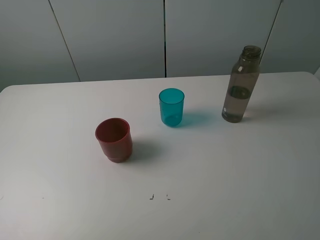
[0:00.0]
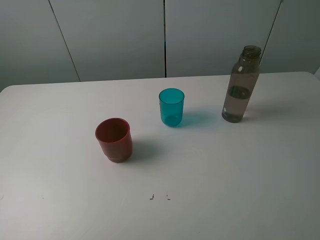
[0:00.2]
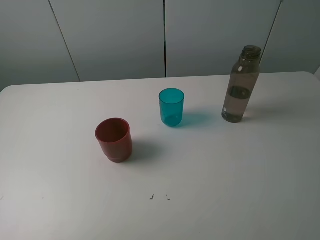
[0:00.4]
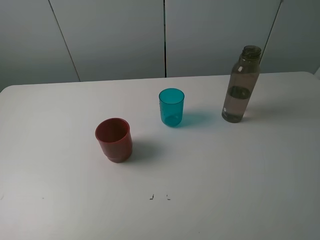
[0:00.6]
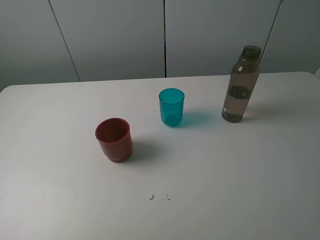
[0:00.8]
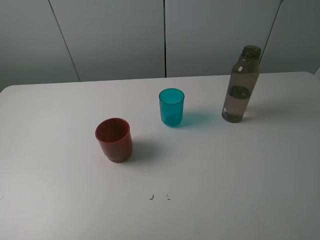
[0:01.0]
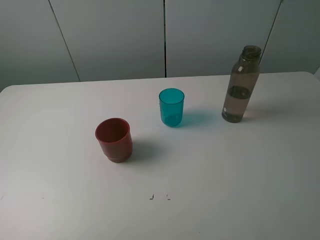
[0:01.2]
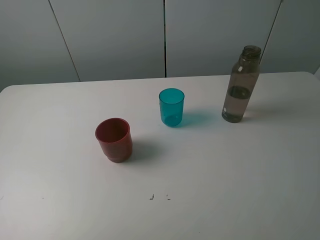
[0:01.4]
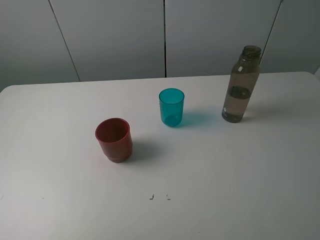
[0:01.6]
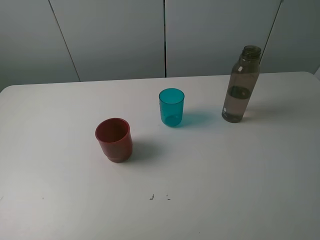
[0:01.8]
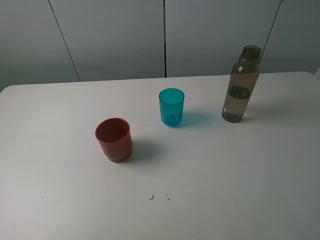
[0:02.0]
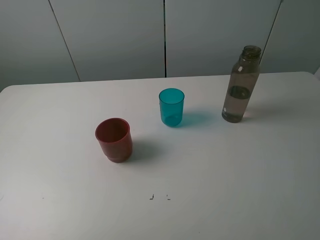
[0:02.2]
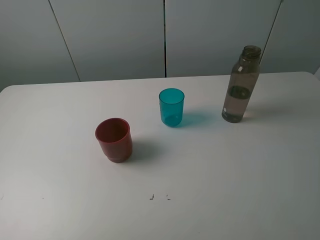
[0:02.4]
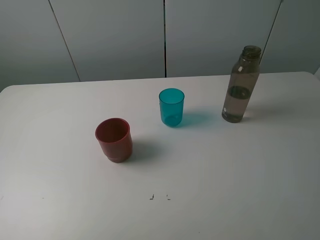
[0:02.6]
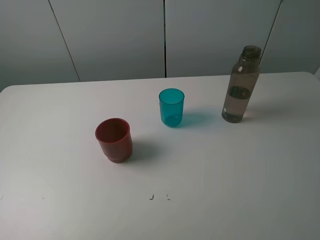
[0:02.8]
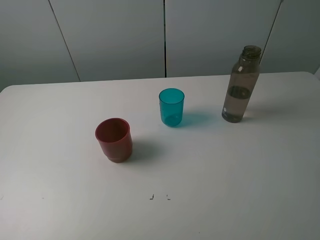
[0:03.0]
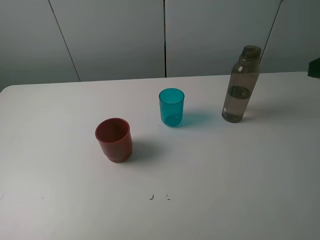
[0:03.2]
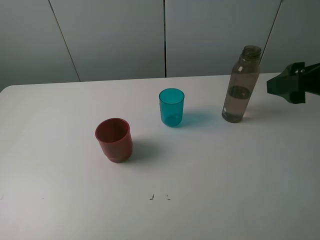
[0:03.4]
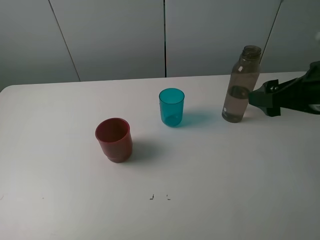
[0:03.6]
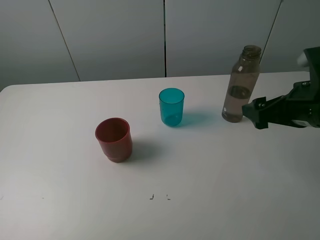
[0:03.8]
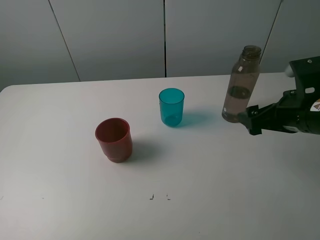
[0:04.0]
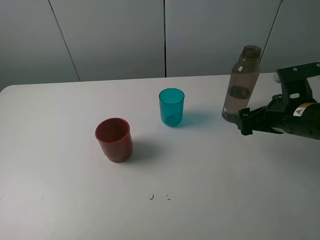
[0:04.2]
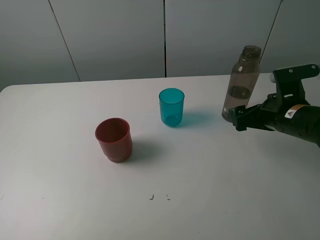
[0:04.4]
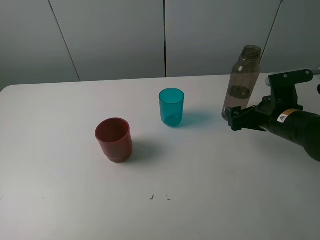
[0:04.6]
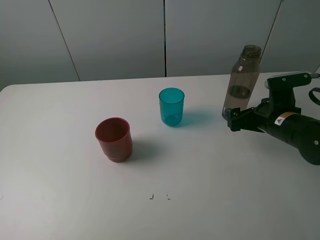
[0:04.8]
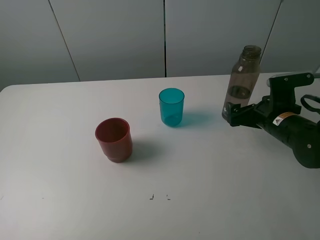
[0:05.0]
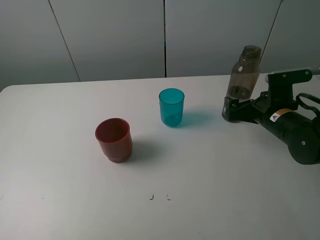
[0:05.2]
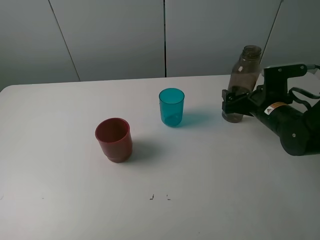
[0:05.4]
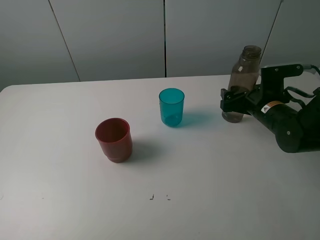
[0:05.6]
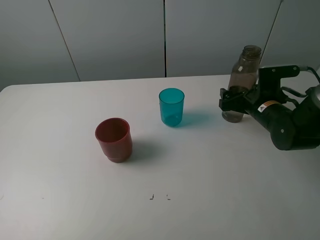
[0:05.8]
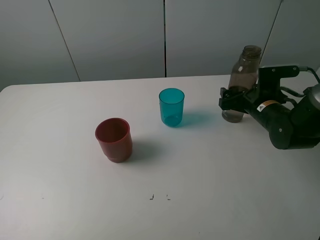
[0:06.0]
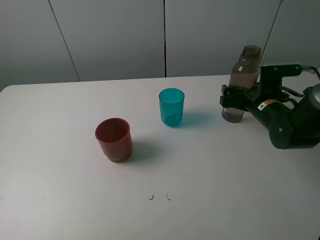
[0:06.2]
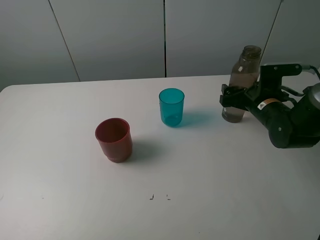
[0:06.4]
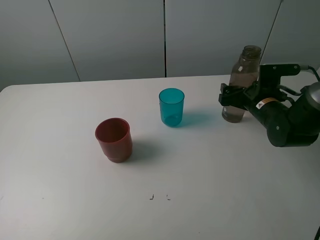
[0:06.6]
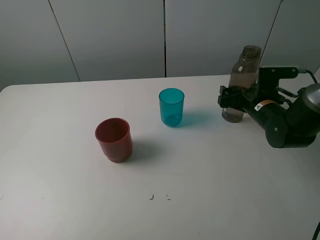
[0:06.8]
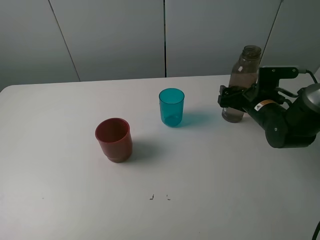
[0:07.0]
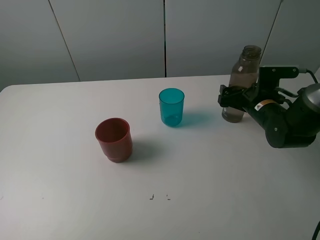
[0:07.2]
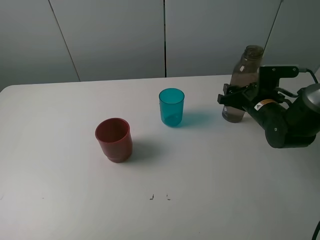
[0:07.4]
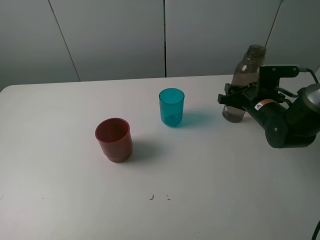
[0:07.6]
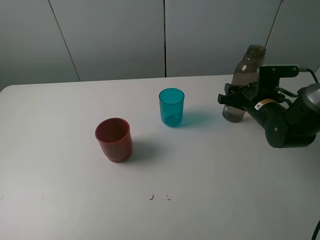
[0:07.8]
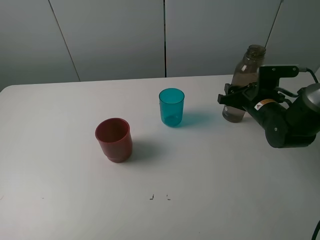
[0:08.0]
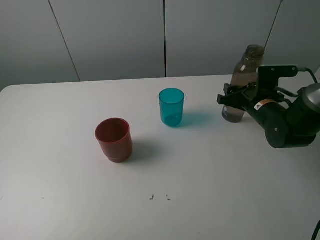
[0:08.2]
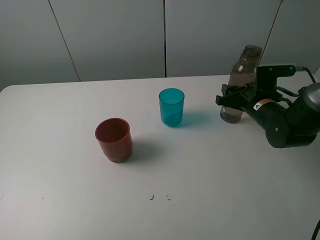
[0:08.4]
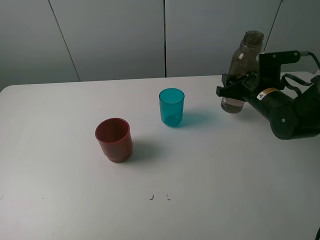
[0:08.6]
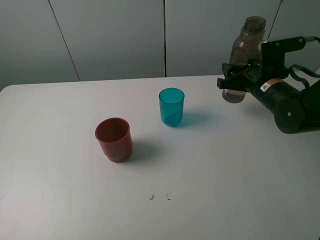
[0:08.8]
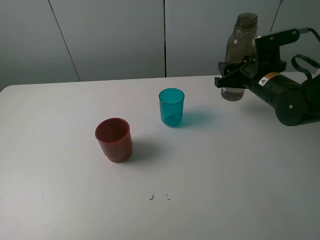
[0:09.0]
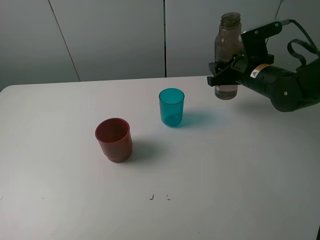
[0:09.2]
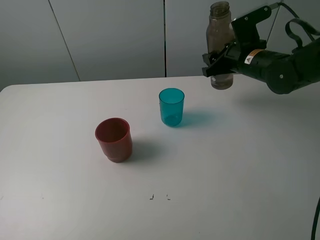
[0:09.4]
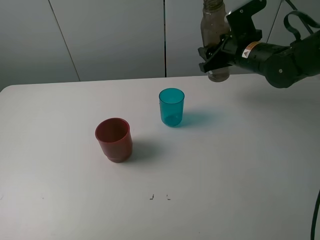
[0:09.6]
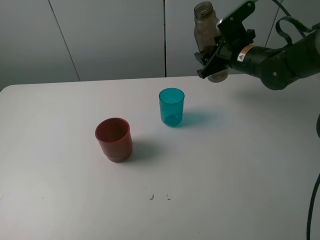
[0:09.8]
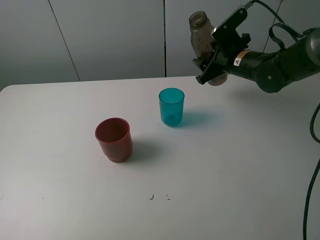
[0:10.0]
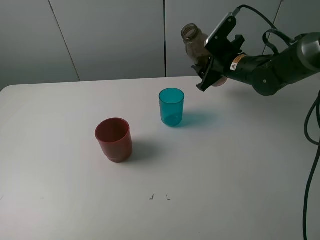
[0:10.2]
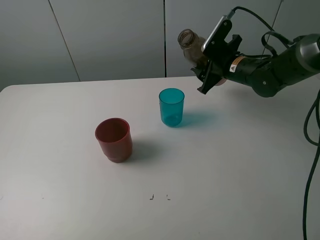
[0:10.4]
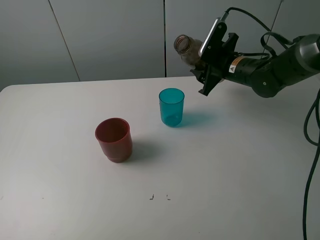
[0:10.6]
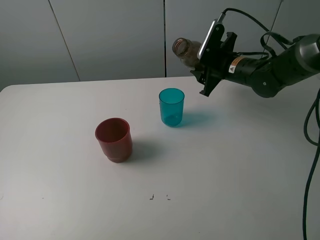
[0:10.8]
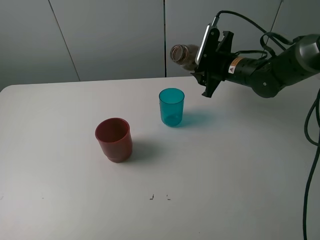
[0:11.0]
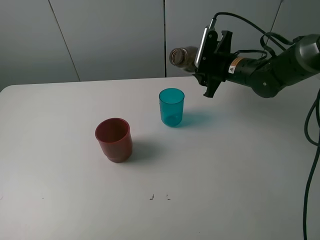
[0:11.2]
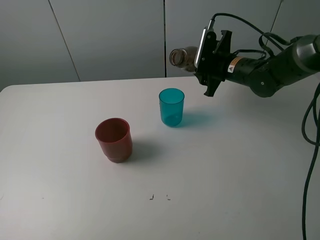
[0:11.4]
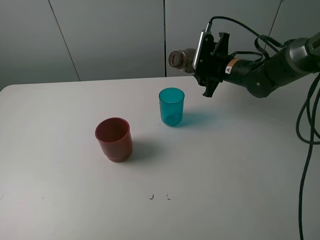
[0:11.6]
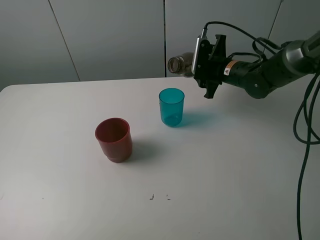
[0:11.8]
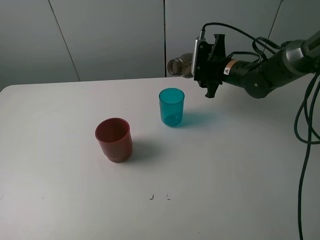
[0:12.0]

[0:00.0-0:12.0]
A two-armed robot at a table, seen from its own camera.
Task of the whole recording: pick up the bottle and pour water into the cup, then pick up the cup containing water and pour it into another cup.
Step, 0:00.0 to 0:07.6: Grasp the brown bottle with the right gripper.
0:00.0 to 0:01.6: Both grippers stay about where they are.
0:03.0 to 0:04.4: The right gripper travels downward and forward by some 25 cm.
0:04.4 to 0:06.0: The right gripper is displaced forward by roughly 5 cm.
0:06.0 to 0:07.6: The right gripper closes up.
0:07.6 to 0:09.0: The right gripper goes roughly 5 cm upward.
0:09.0 to 0:10.4: The right gripper moves forward, some 5 cm.

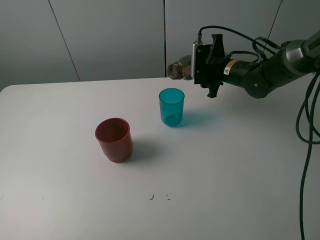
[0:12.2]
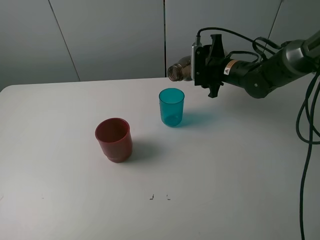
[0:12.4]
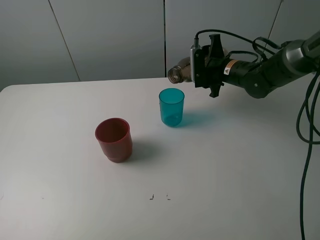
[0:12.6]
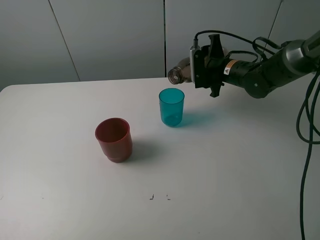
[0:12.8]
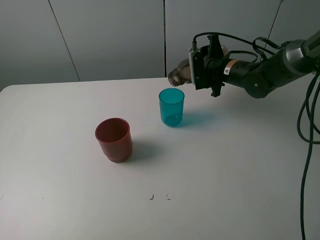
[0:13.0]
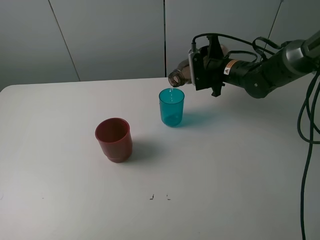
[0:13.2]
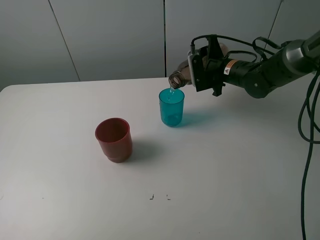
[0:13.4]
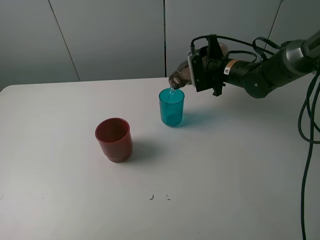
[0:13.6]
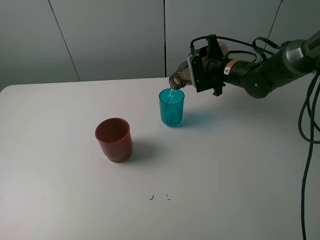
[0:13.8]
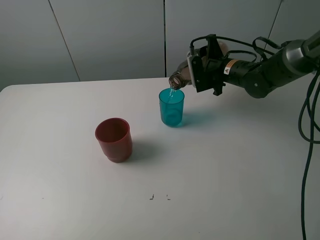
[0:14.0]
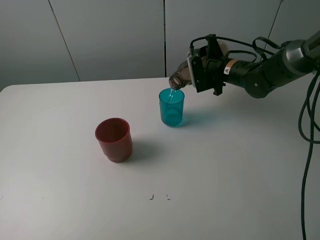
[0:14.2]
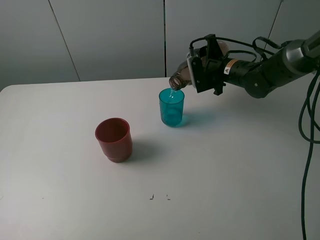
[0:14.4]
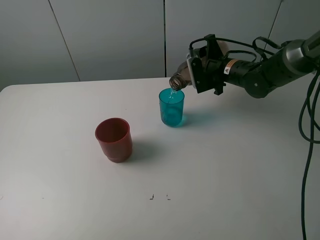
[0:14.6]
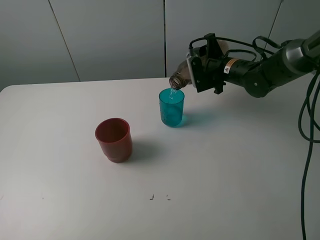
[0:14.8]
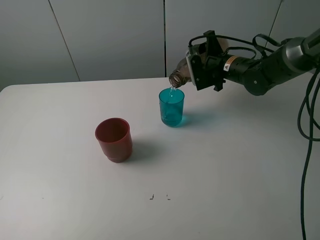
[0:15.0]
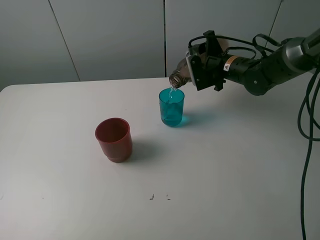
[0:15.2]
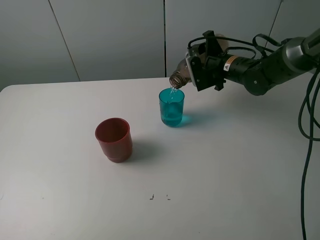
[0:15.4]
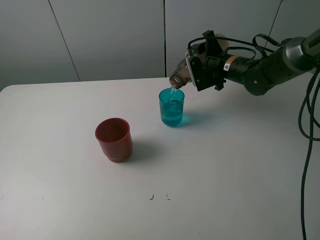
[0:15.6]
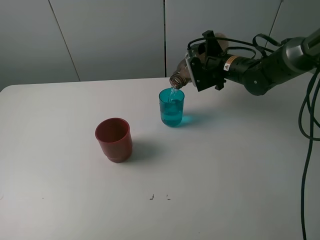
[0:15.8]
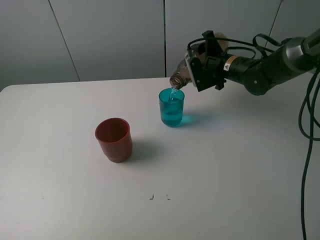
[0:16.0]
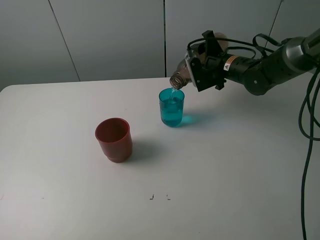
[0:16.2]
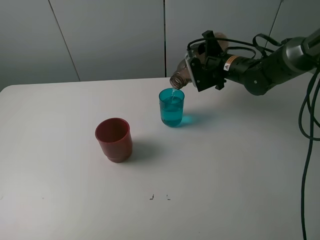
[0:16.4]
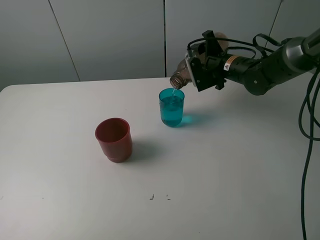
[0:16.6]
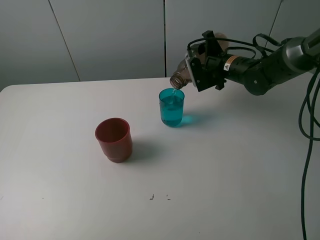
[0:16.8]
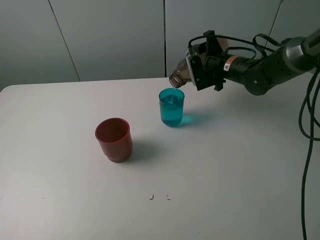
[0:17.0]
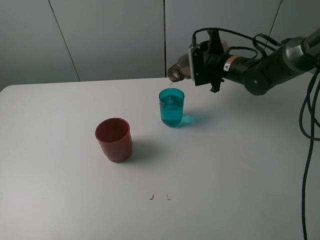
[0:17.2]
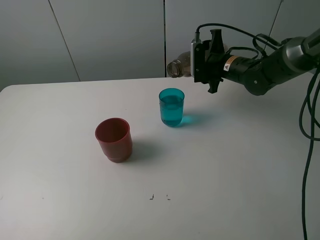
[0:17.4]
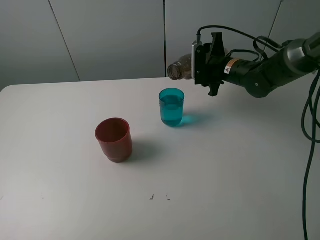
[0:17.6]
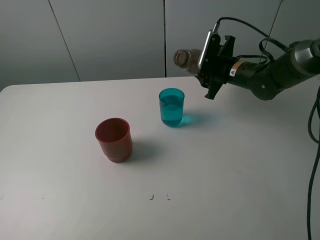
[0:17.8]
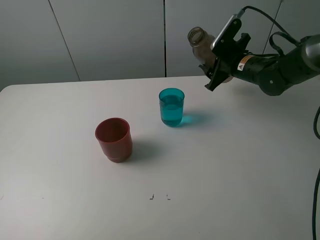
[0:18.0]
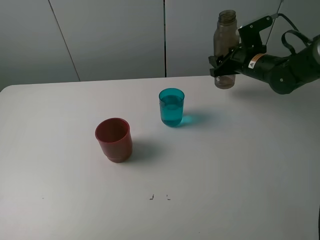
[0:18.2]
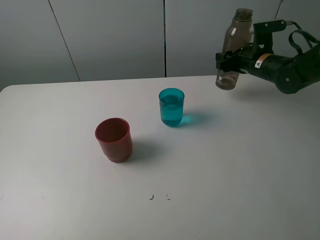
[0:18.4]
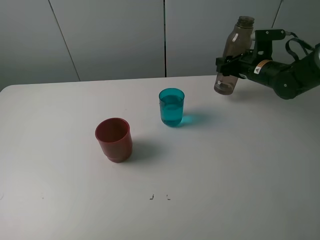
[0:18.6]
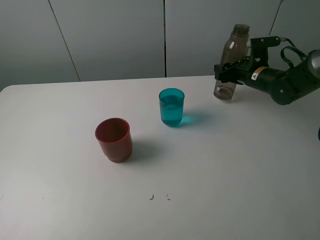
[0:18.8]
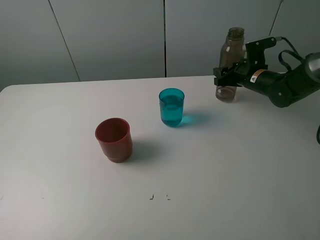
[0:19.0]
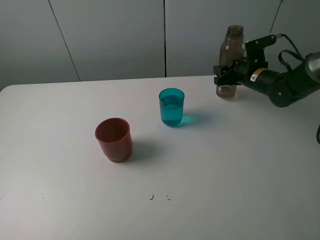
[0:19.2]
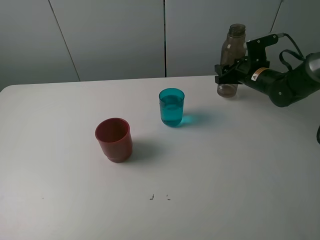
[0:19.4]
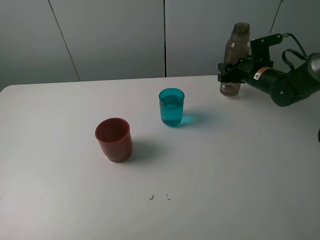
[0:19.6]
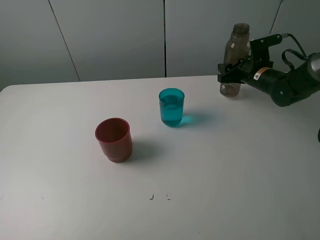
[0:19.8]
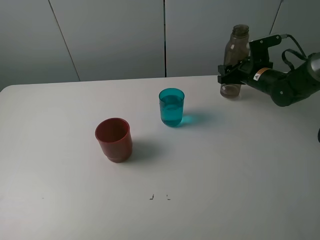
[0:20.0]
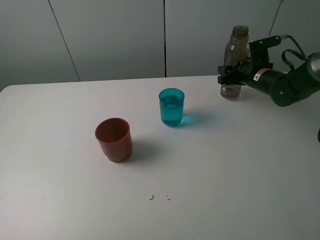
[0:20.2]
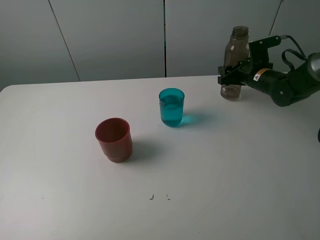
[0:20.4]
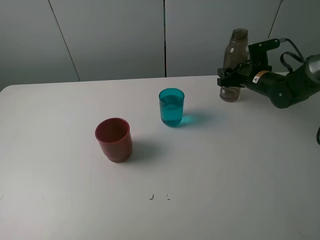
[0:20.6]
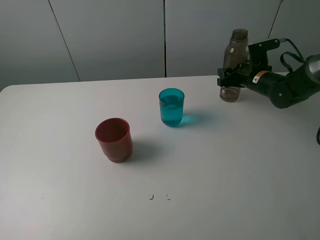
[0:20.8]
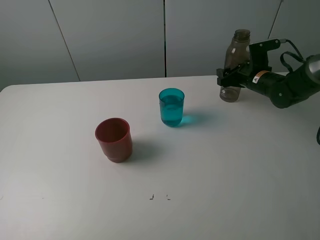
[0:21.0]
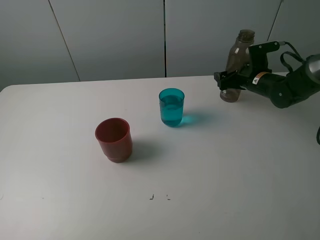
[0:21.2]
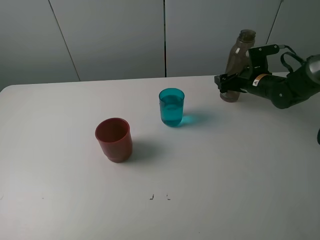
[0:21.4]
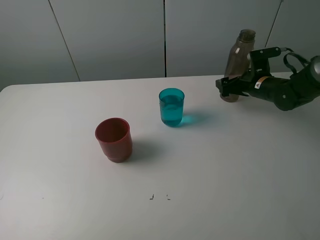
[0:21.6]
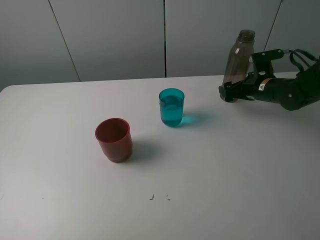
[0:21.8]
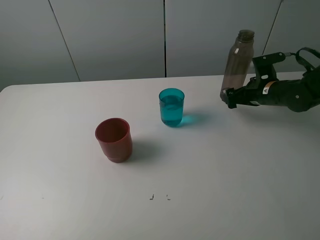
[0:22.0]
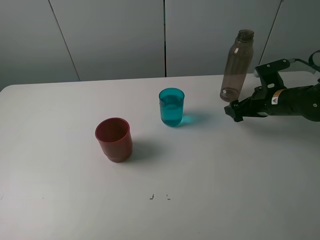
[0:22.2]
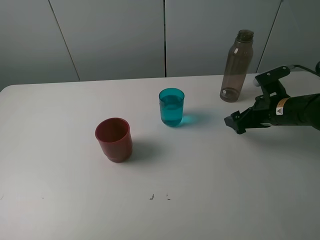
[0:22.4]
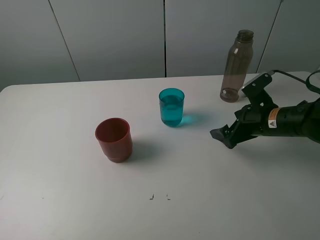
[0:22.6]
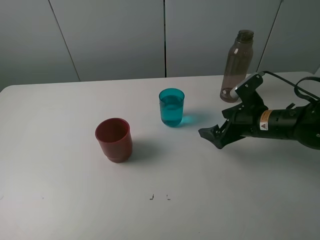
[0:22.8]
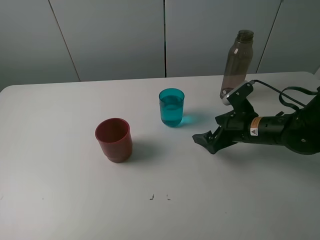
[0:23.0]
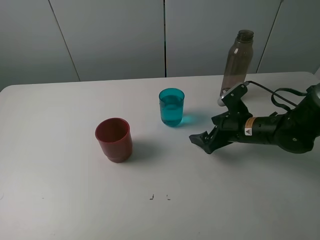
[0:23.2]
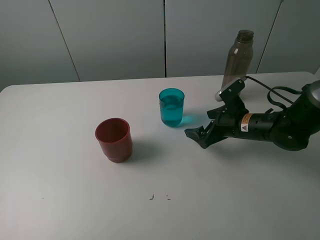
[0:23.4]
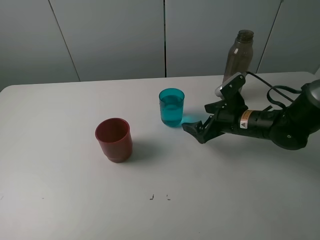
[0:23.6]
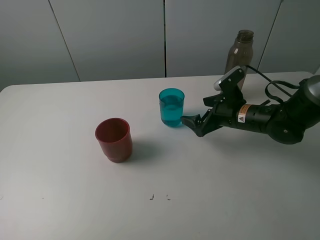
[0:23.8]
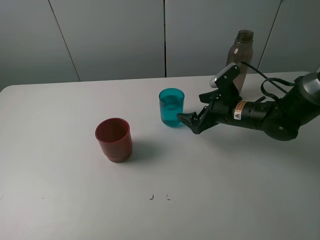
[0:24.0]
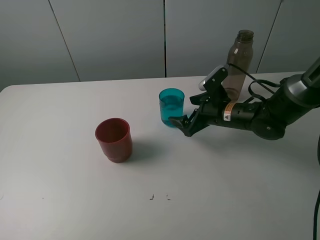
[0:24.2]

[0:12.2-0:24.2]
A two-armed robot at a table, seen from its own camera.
Task of the whole recording: pick up the bottle and pour water into the cup, then pick up the cup containing water and pour it into another cup.
Step, 0:12.2 to 0:17.2: Pour water from brown bottle to blue cup with the right gripper.
Step, 0:17.4 to 0:21.4: Place the brown bottle with the right gripper.
0:12.2 to 0:15.2: The grippers move only a little.
0:15.2 to 0:16.6: Both grippers stay about where they are.
0:16.6 to 0:18.2: The right gripper goes about 5 cm to the right.
0:18.2 to 0:19.8: The grippers move only a little.
0:19.8 to 0:21.2: The right gripper opens.
0:21.2 to 0:22.6: The right gripper is displaced backward by some 15 cm.
0:22.6 to 0:24.2: The right gripper moves to the left, about 10 cm.
